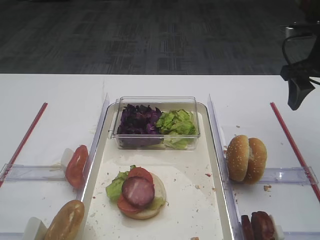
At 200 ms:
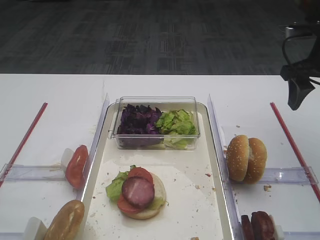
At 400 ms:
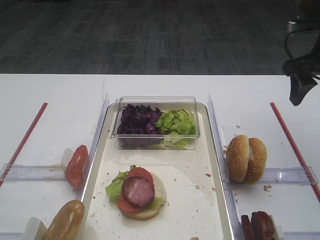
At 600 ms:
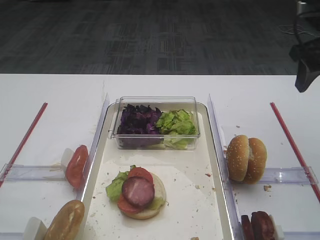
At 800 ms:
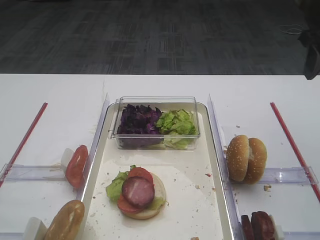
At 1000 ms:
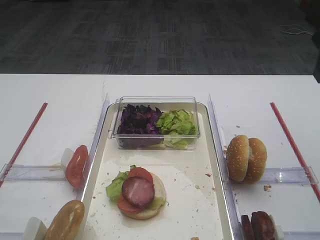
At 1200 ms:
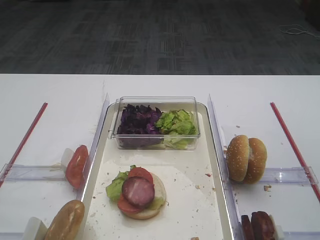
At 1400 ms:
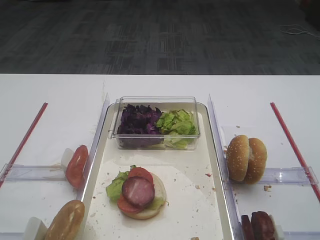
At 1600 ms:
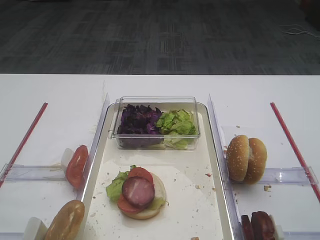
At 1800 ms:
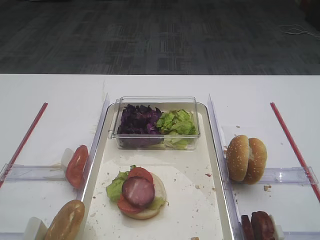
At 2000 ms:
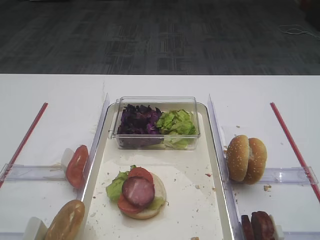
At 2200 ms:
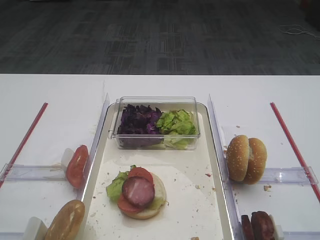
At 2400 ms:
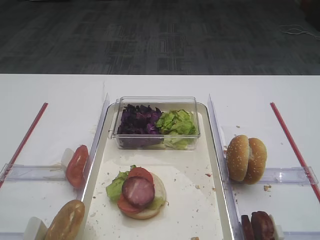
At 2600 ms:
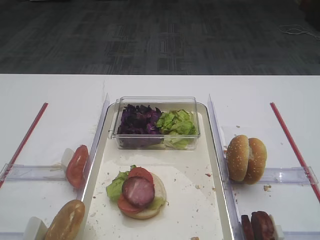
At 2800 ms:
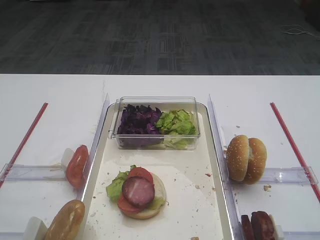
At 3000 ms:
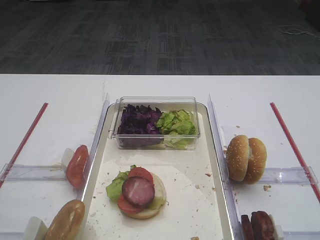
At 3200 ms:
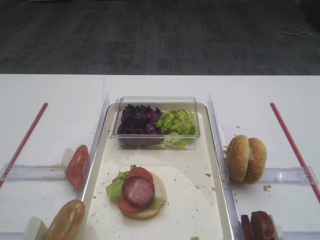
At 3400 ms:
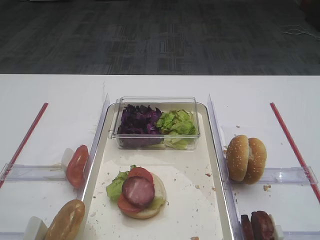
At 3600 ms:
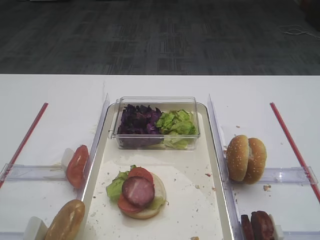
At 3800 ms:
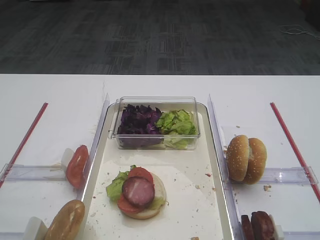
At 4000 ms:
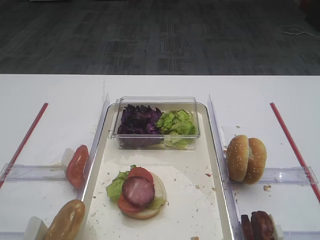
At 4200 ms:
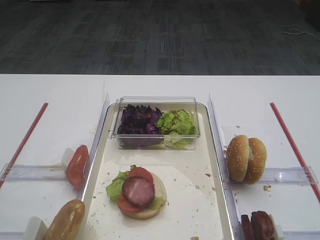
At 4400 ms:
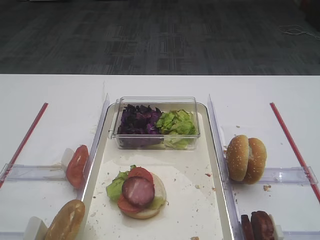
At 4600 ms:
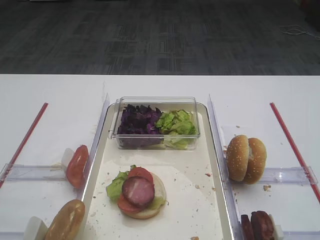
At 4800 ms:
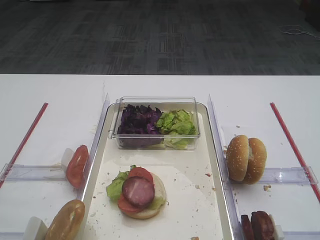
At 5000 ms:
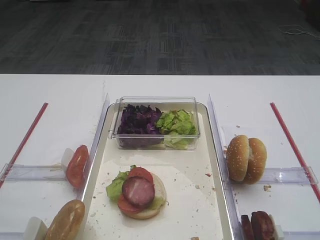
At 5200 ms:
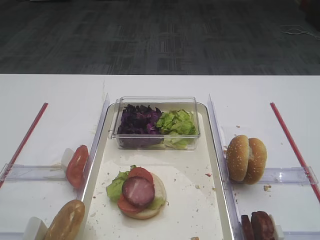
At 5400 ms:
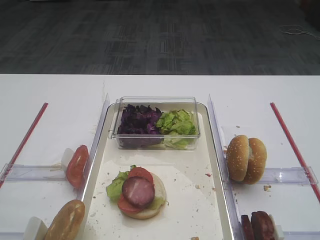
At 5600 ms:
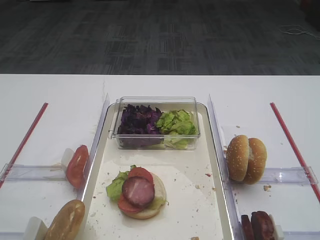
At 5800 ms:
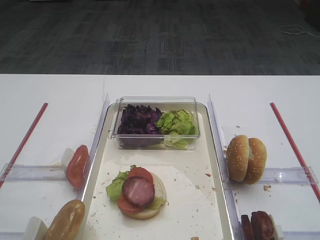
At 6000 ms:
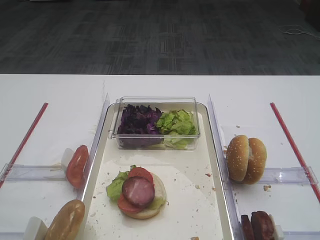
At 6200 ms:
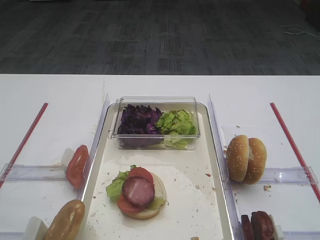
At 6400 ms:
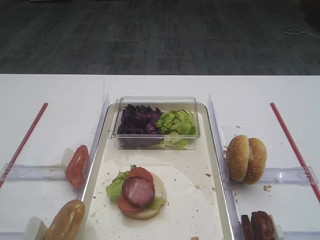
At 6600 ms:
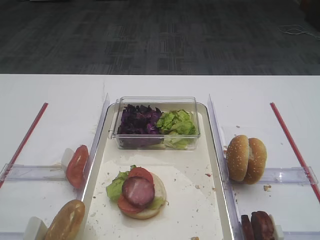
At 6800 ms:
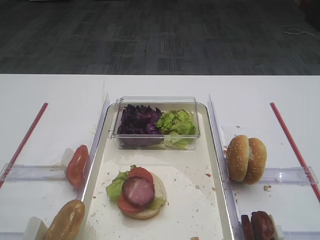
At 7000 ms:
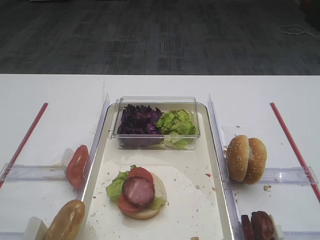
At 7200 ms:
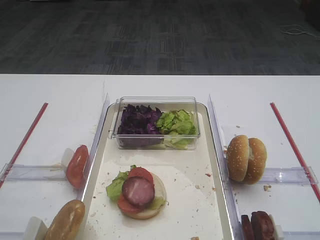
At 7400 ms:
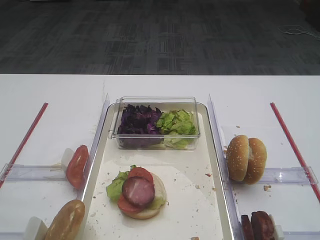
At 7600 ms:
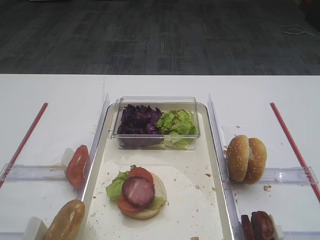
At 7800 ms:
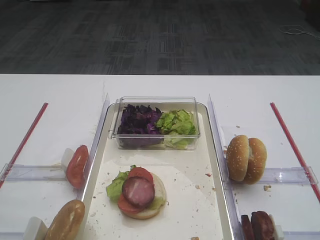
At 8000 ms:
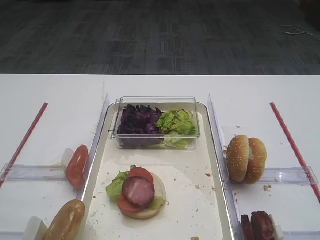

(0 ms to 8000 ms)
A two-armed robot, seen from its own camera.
0 ms - 1600 ms: The right gripper goes about 25 cm backward and upward.
3200 ms - 8000 ms: Both grippers stay put.

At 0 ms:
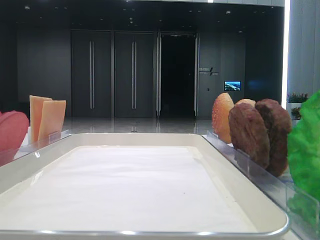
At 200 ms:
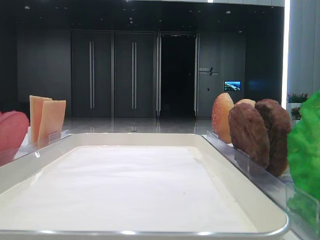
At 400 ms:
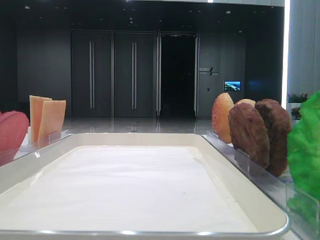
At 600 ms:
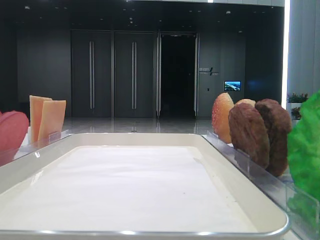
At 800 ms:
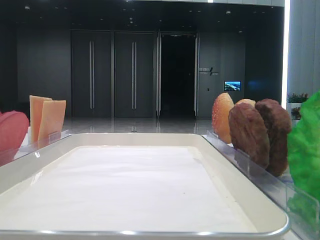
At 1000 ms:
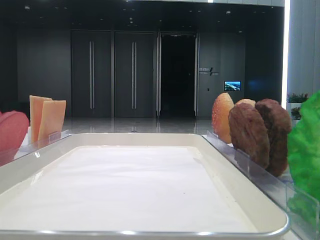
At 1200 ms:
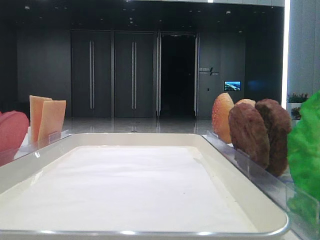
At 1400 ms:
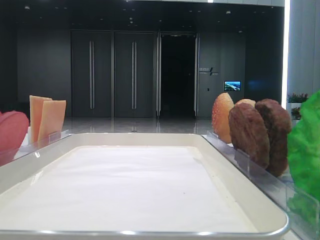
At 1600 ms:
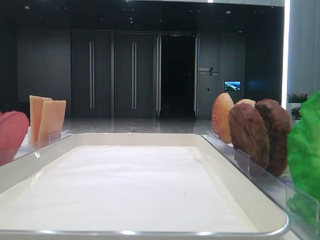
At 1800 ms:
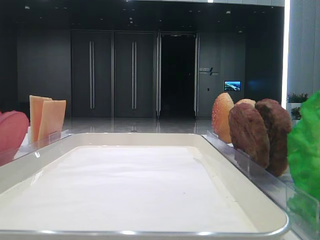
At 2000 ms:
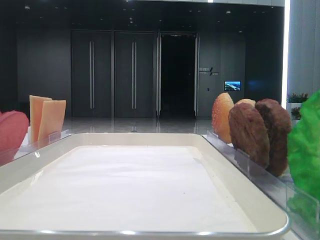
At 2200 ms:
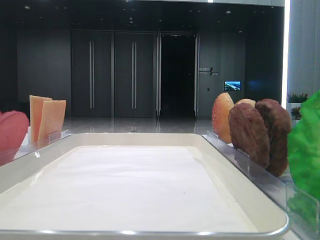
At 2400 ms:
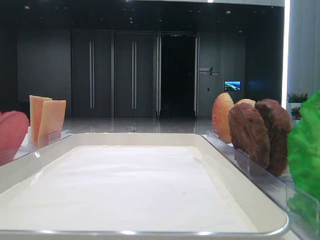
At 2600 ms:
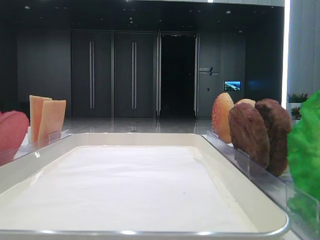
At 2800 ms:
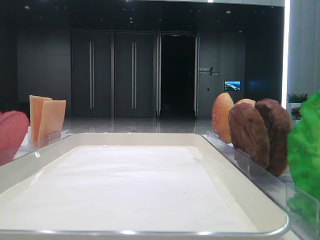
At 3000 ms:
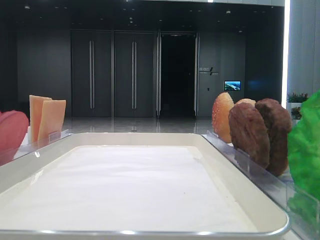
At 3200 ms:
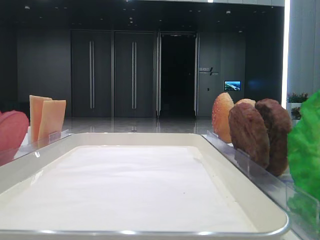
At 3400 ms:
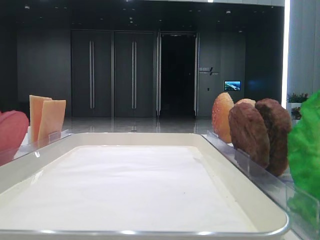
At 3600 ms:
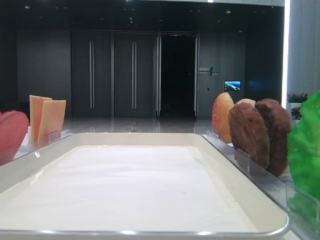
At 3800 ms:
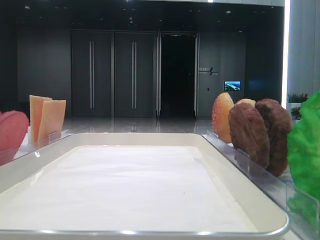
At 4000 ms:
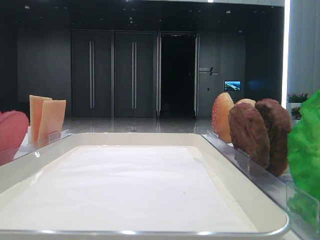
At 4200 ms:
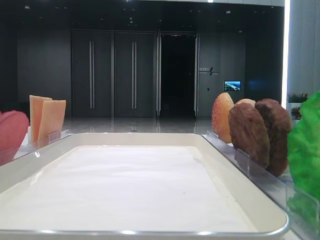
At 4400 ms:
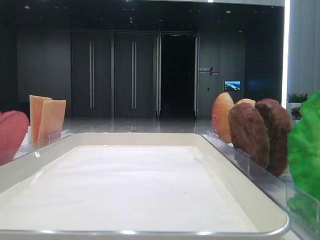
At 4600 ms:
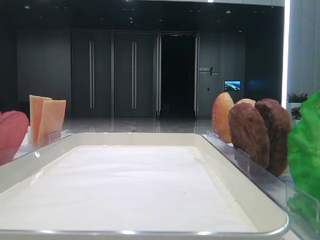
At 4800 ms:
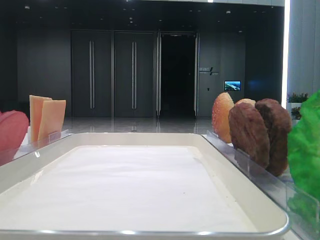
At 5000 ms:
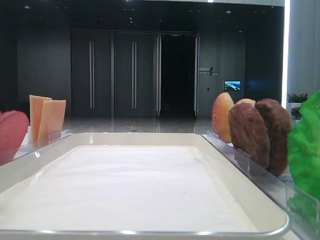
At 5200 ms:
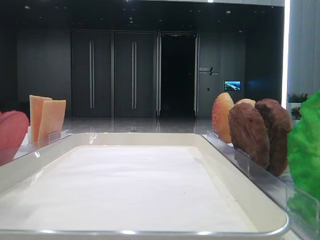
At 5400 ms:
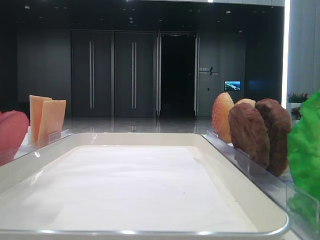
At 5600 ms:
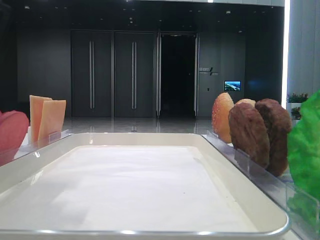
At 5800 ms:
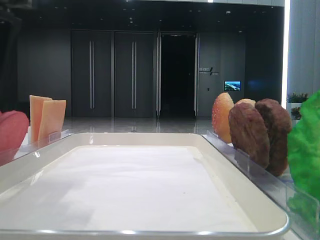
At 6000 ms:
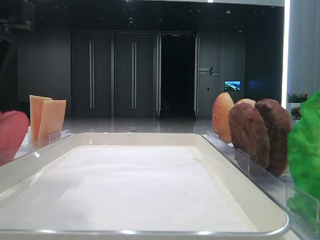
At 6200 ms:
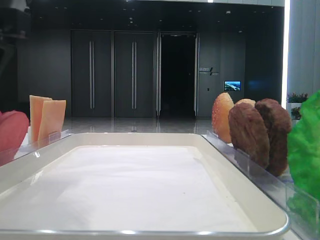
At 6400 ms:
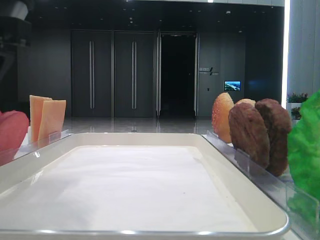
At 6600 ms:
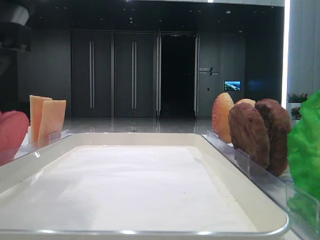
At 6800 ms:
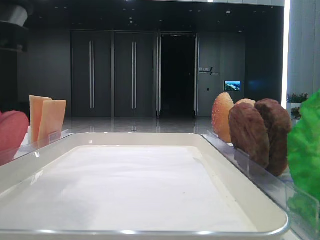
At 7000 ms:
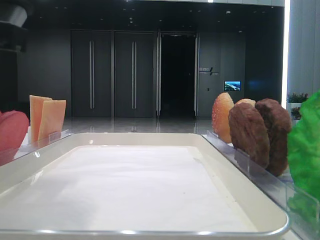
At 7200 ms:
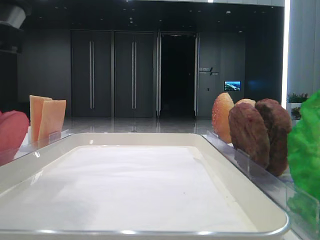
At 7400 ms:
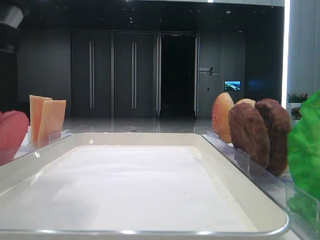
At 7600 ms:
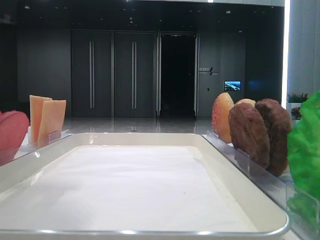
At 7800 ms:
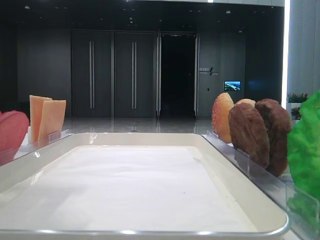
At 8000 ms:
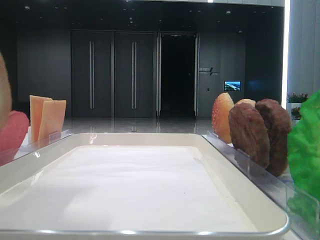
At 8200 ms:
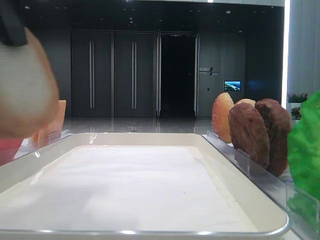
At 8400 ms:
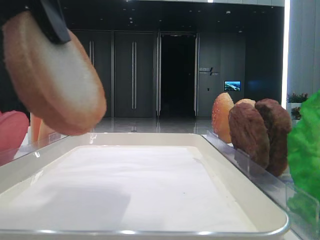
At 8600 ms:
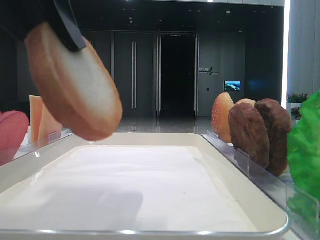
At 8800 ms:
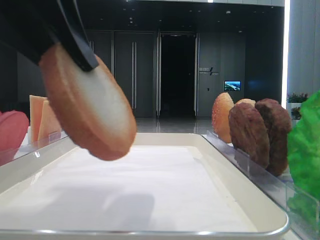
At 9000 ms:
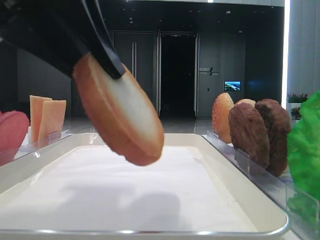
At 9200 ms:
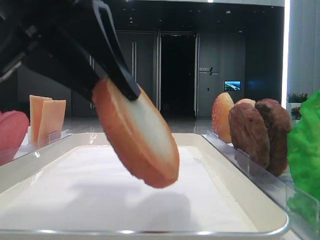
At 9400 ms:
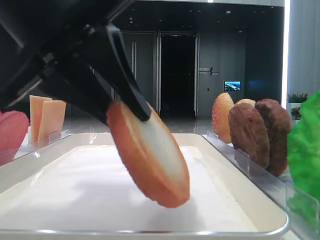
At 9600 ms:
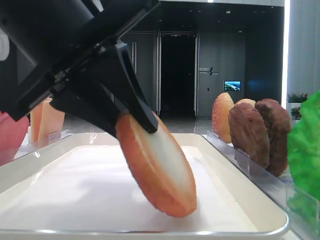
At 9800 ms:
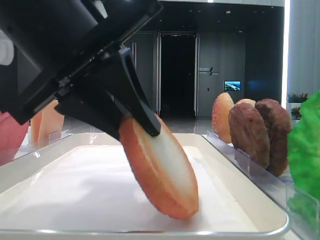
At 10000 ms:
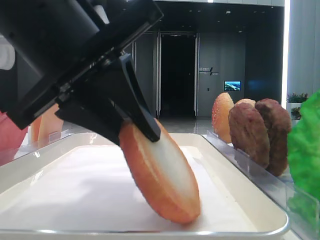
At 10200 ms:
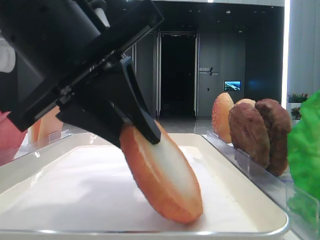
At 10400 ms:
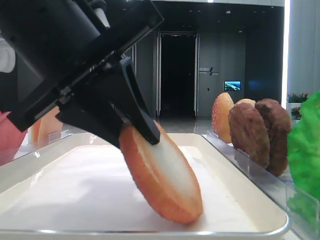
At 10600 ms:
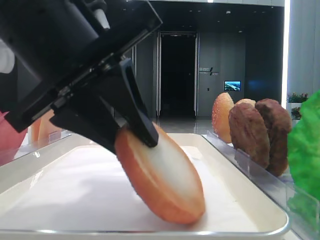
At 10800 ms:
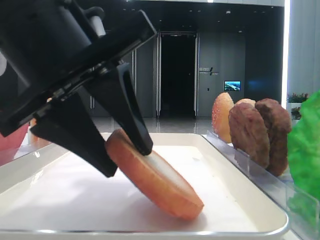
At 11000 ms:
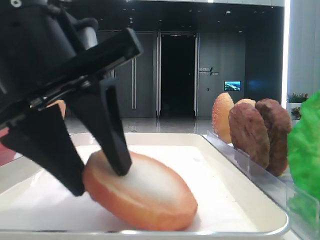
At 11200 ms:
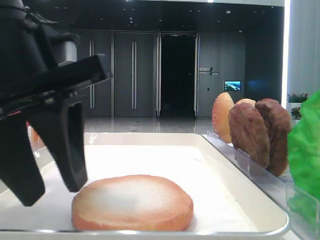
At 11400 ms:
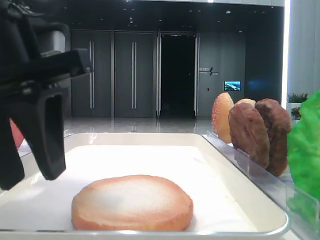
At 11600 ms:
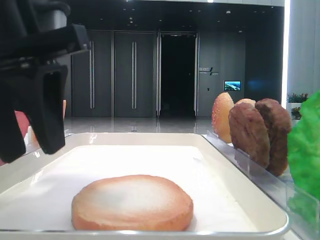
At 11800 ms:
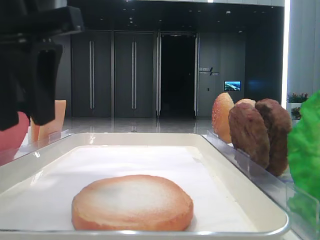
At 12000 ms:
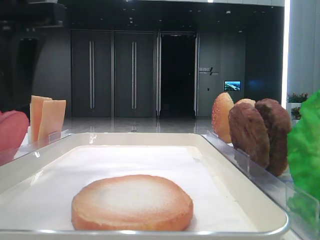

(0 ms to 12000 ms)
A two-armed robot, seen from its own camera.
Step, 7600 ms - 11000 ms: Place the bread on the tray with the left hand.
4400 ms - 6000 ms: The left gripper moves to the right, about 15 cm.
7600 ms - 9000 ms: The left gripper shifts roughly 5 cm to the right.
9000 ms - 10400 ms: The left gripper heads downward, covering some 5 cm.
10400 ms - 12000 ms: The left gripper is displaced upward and to the left by some 10 cm, and opens its fingers.

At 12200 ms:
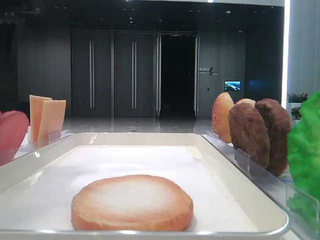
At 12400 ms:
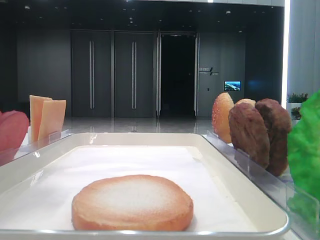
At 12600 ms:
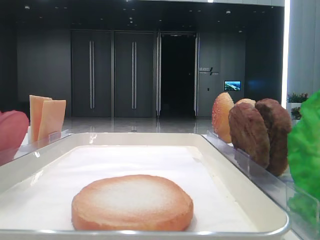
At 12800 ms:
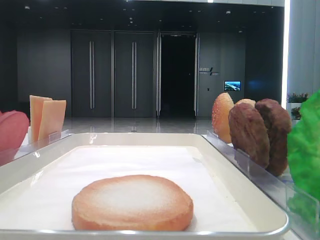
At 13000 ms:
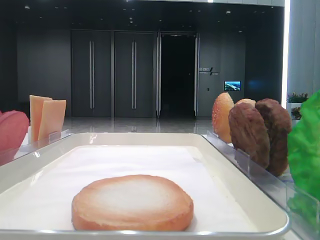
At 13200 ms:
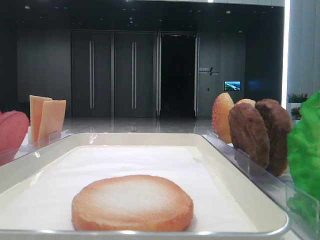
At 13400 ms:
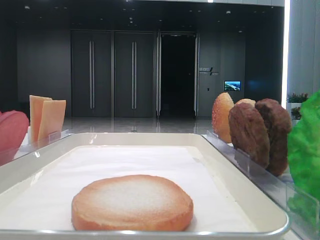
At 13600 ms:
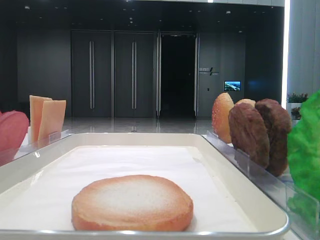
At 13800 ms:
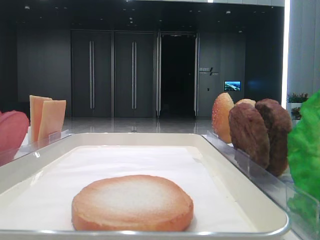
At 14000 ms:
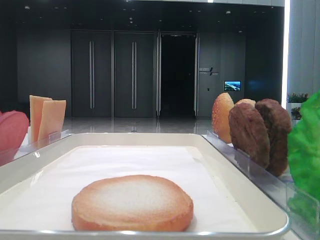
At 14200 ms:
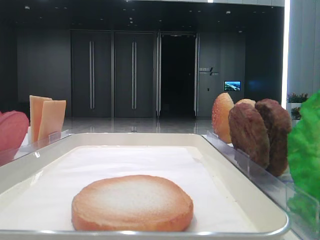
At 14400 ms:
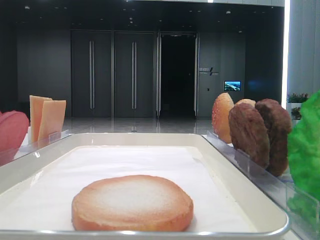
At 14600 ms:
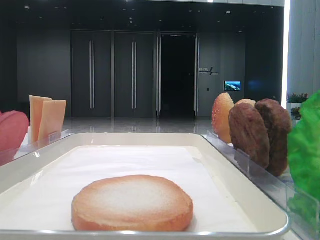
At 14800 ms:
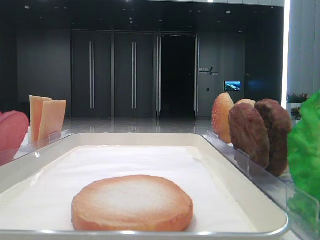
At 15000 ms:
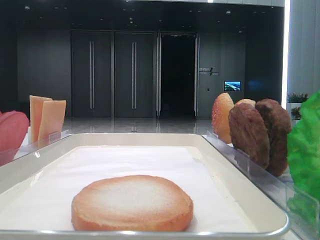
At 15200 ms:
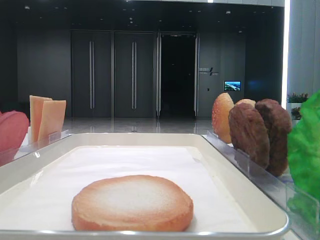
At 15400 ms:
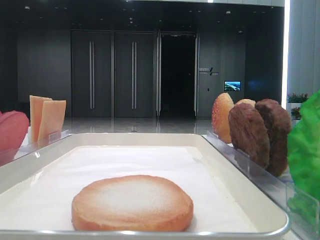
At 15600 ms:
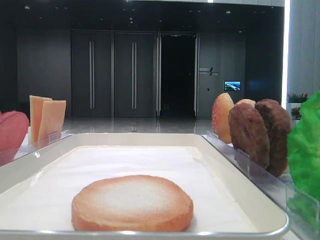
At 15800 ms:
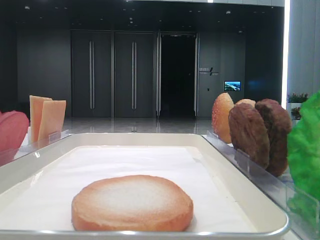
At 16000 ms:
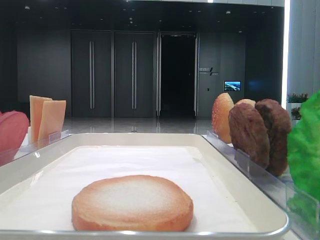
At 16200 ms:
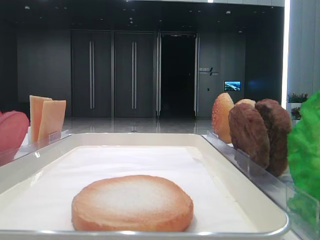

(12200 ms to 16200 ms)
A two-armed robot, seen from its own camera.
12200 ms - 13600 ms: The left gripper is displaced to the left and backward by approximately 20 cm.
